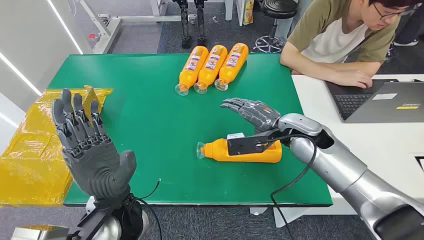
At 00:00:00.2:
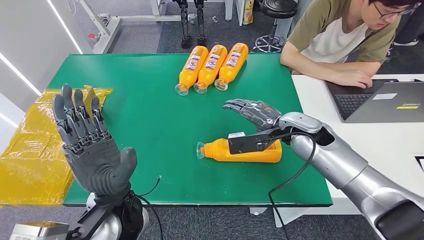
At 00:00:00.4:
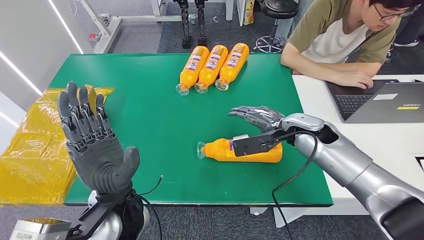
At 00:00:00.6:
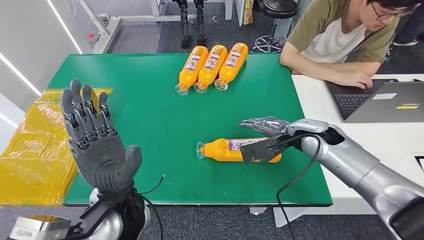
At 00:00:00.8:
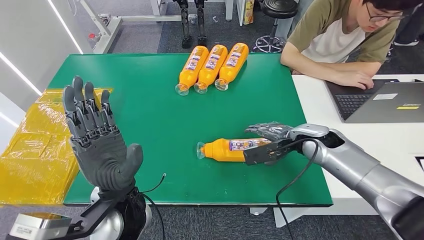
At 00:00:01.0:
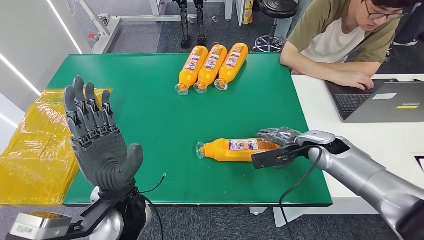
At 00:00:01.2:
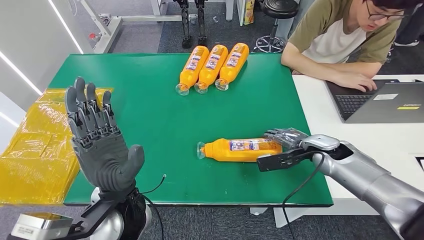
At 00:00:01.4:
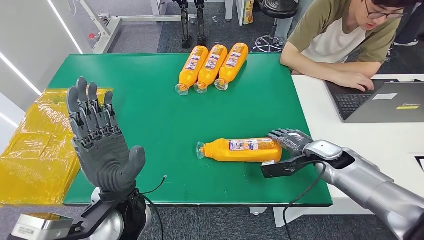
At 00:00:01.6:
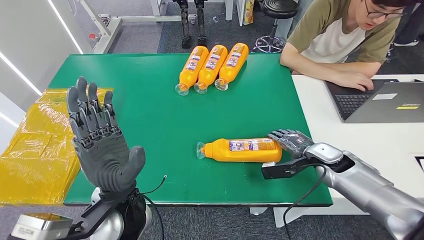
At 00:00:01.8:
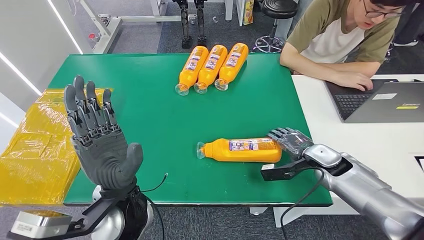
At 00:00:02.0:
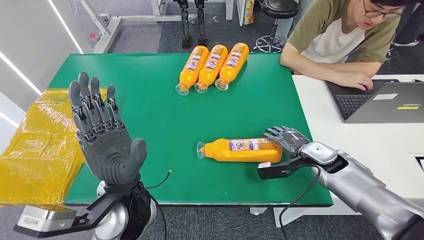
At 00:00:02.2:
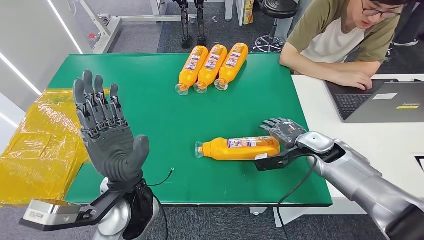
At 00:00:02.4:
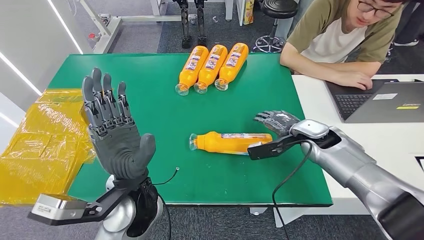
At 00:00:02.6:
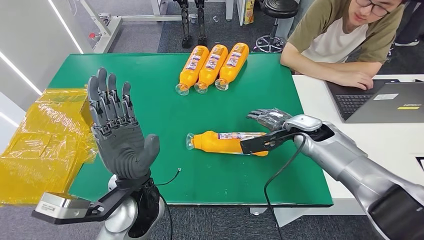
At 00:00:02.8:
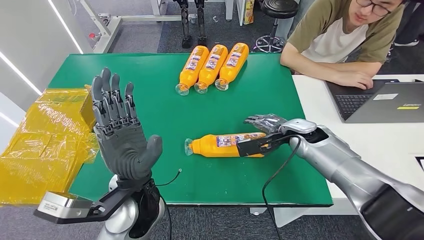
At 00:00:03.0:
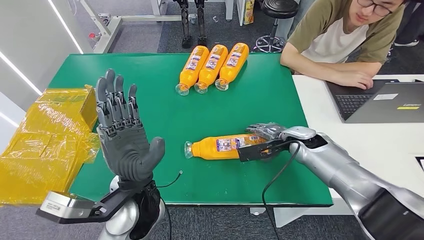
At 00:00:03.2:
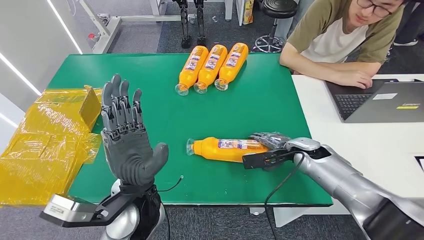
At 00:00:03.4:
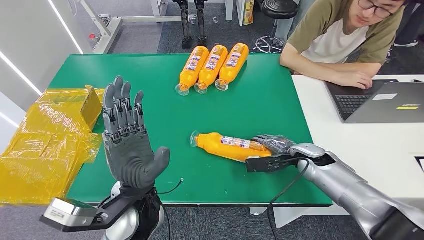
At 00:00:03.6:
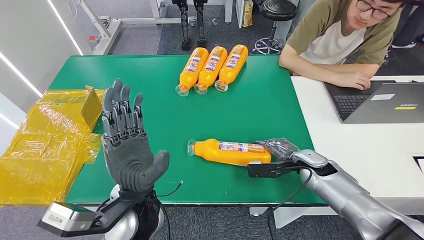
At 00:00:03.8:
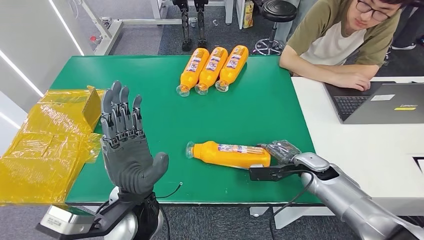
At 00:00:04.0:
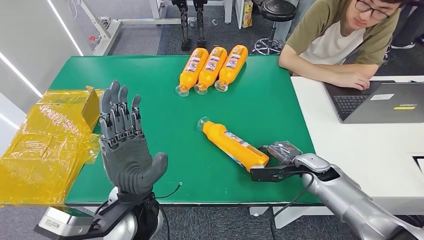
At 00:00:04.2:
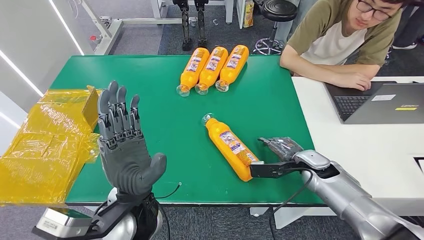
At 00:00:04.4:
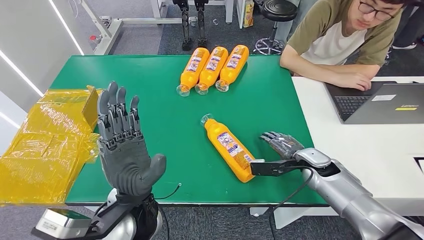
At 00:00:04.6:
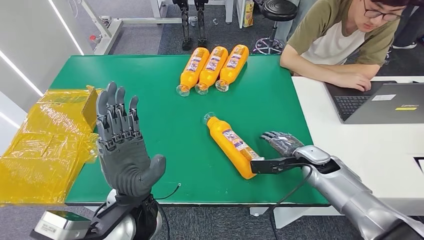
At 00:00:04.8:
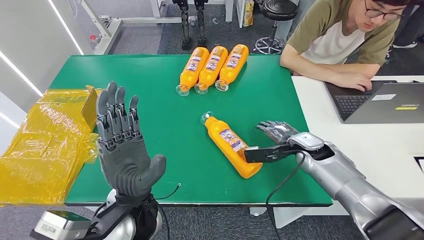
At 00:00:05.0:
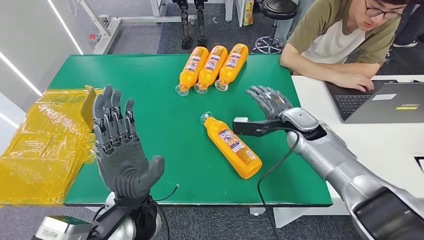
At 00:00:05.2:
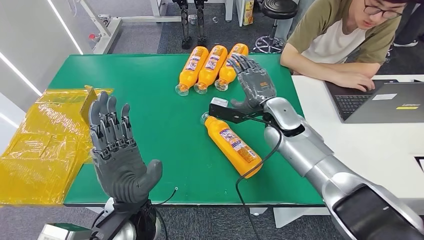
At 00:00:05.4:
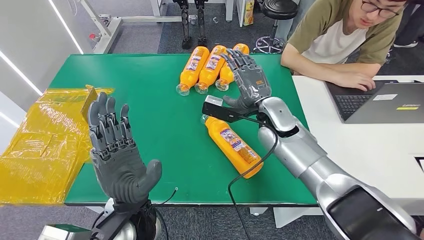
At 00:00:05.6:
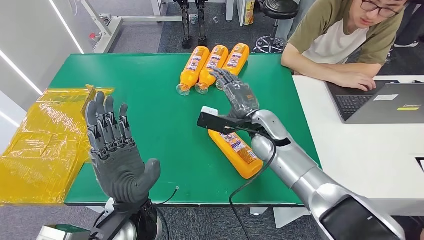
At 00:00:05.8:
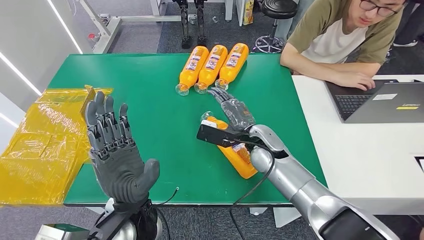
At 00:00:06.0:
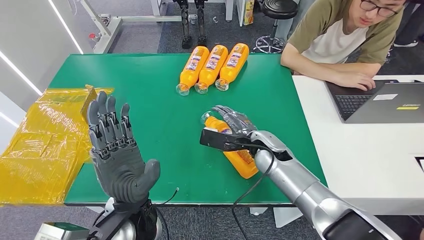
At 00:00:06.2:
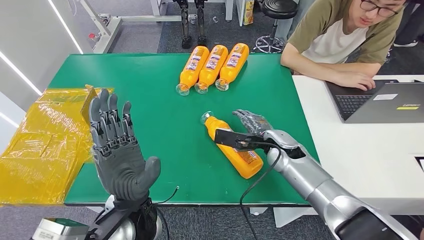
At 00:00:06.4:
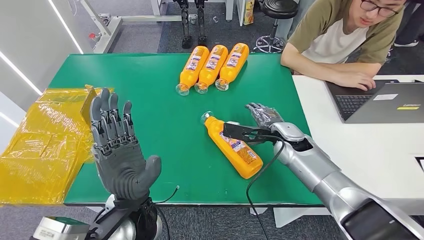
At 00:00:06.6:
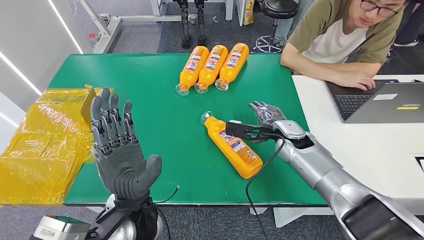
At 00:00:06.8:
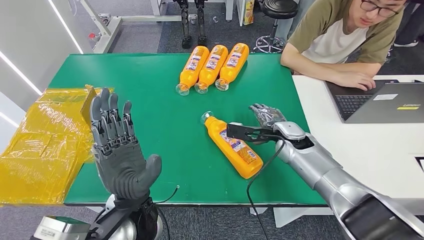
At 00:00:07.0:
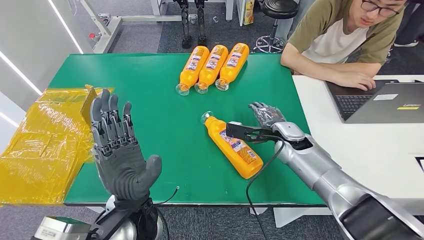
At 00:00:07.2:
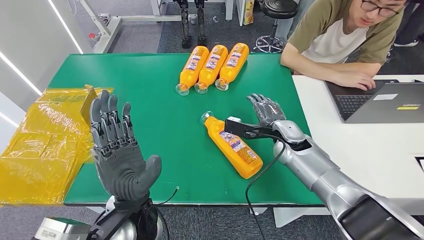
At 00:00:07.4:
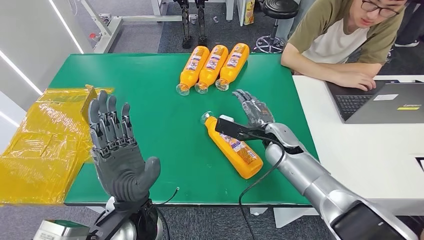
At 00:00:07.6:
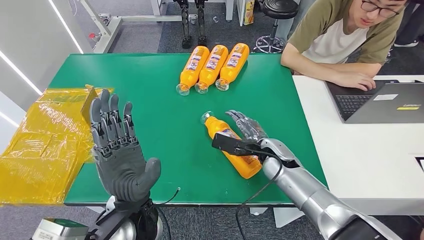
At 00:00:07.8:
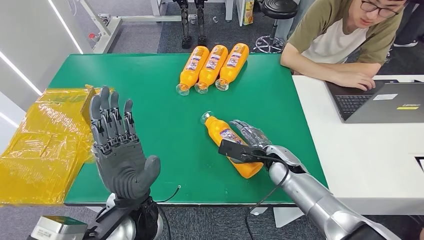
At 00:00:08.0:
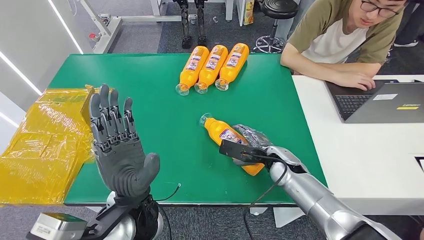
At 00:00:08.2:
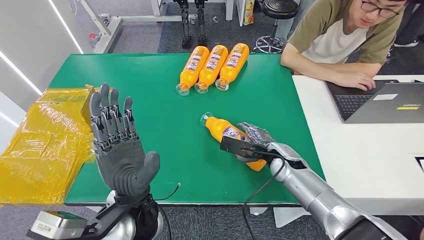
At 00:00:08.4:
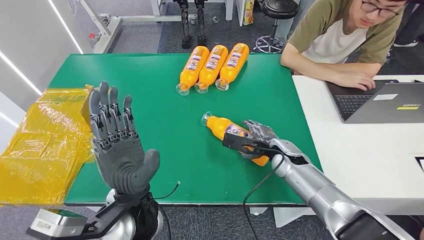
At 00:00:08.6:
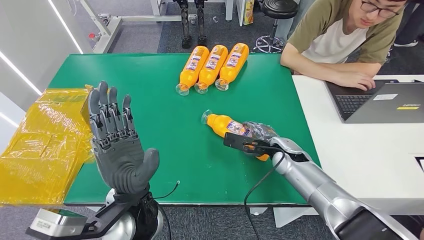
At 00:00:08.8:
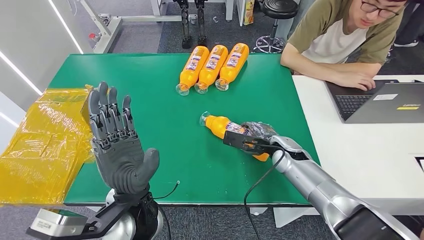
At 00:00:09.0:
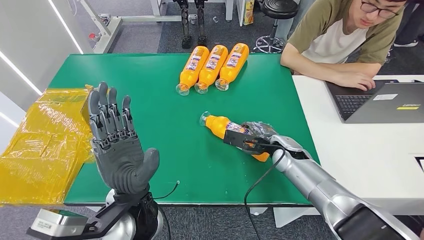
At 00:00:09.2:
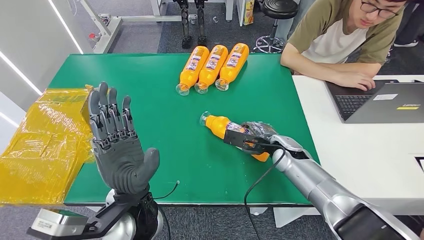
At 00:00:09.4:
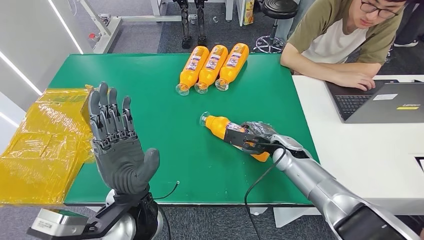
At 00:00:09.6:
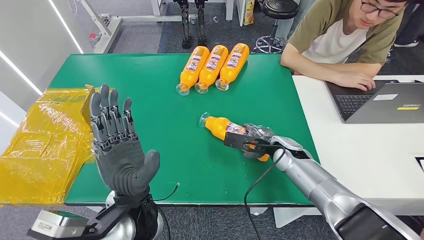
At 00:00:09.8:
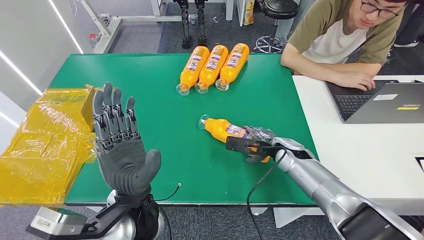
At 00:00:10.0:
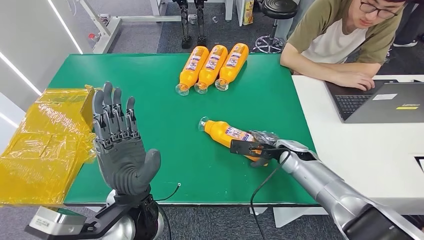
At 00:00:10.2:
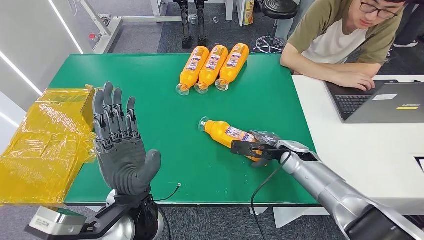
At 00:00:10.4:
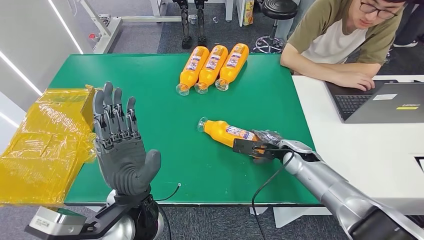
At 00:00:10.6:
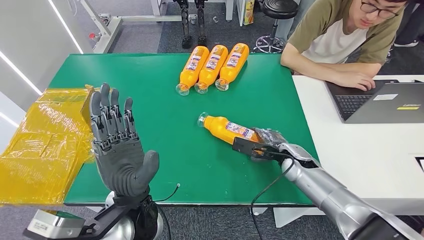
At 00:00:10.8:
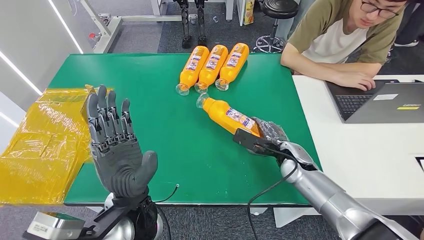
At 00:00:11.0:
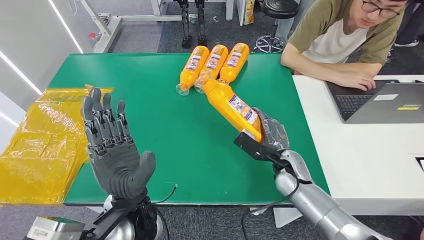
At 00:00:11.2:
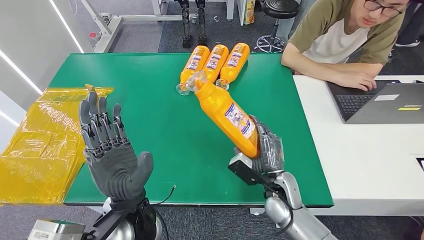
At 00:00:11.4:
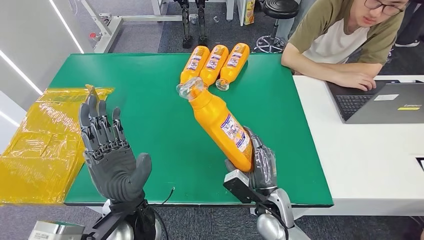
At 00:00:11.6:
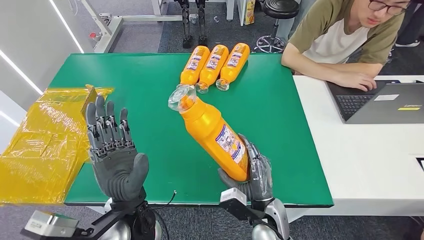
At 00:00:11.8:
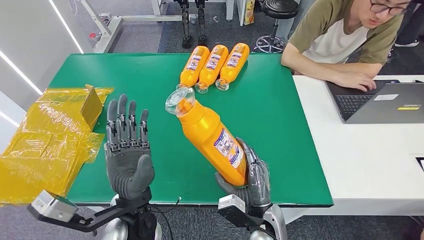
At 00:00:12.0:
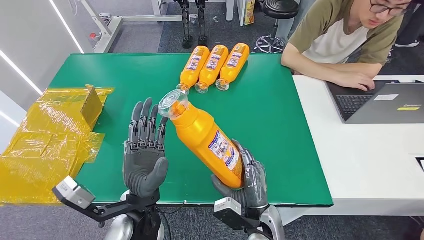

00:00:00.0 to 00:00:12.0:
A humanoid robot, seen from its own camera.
Step, 00:00:00.0 to 00:00:11.6: Pick up the bottle from the table.
00:00:04.4 to 00:00:06.0: The right hand is displaced to the left by roughly 15 cm.
00:00:07.6 to 00:00:09.0: The hands stay close to where they were, moving slightly.
00:00:09.0 to 00:00:10.4: There are only small adjustments of the hands.

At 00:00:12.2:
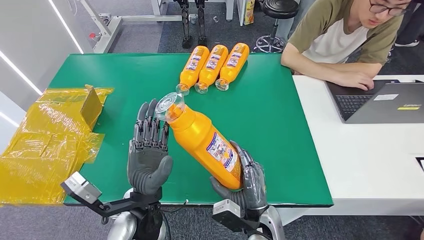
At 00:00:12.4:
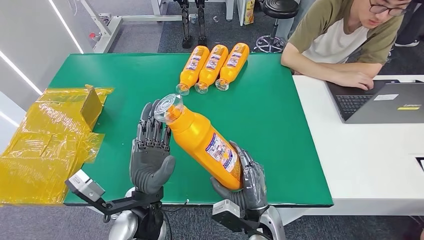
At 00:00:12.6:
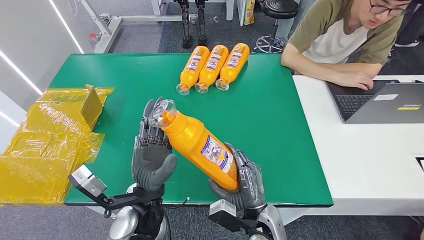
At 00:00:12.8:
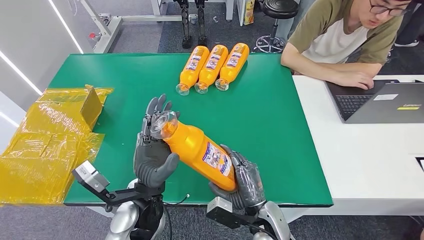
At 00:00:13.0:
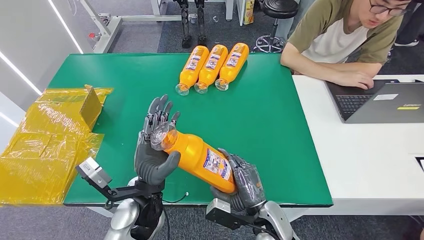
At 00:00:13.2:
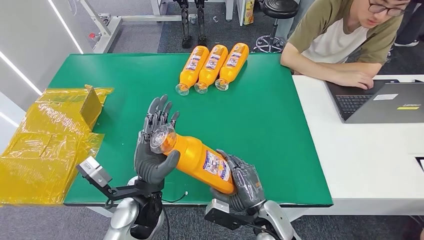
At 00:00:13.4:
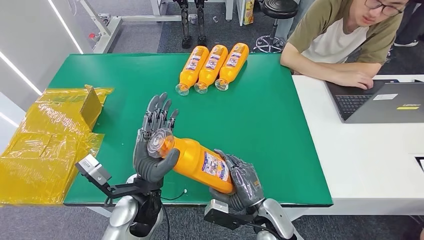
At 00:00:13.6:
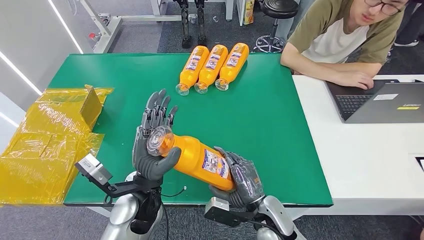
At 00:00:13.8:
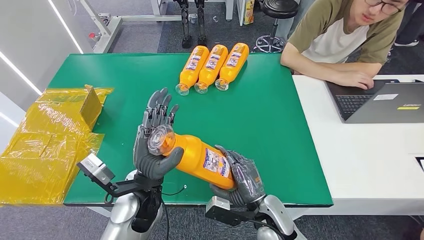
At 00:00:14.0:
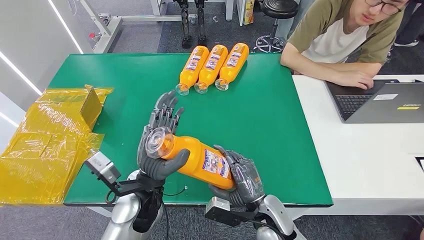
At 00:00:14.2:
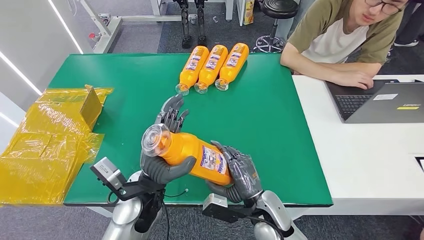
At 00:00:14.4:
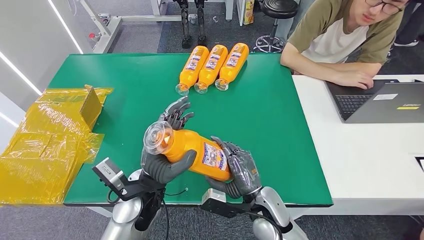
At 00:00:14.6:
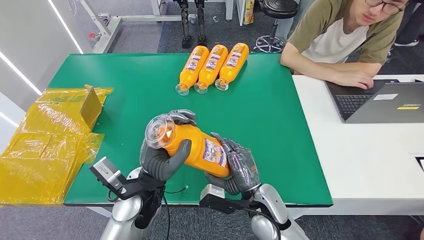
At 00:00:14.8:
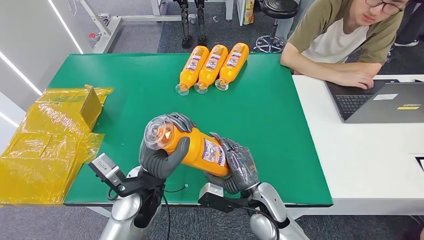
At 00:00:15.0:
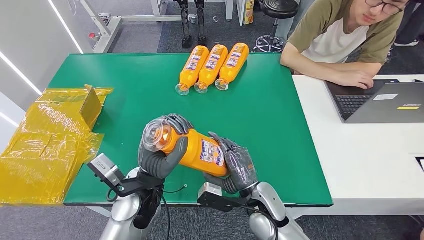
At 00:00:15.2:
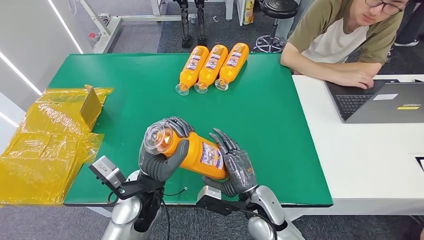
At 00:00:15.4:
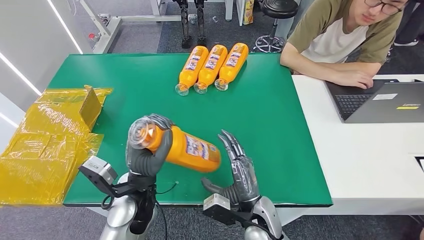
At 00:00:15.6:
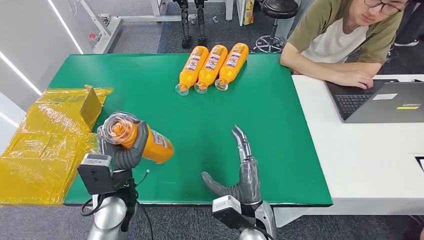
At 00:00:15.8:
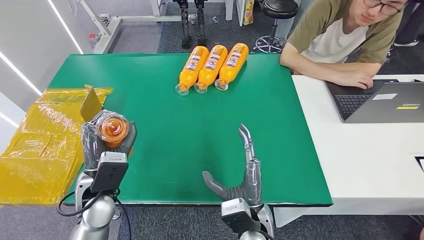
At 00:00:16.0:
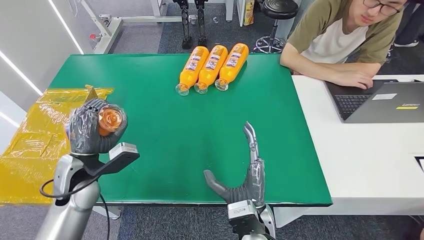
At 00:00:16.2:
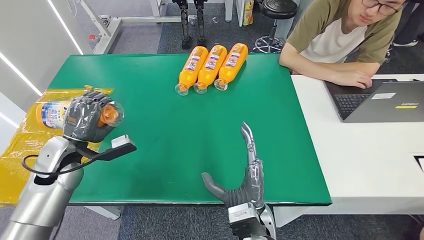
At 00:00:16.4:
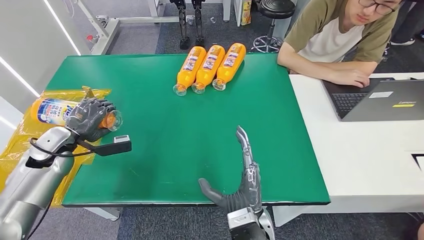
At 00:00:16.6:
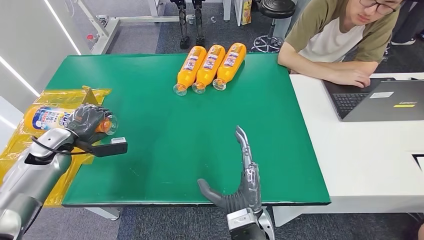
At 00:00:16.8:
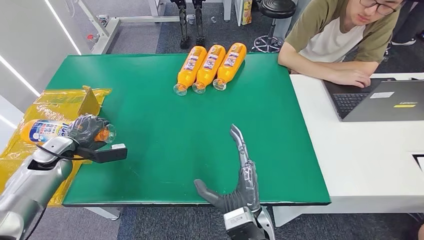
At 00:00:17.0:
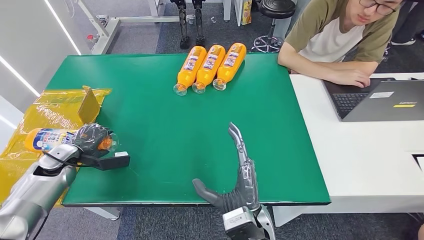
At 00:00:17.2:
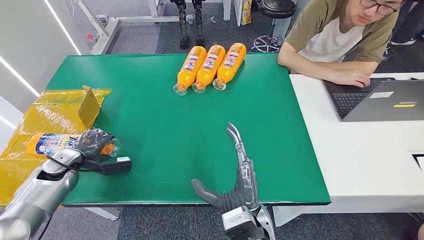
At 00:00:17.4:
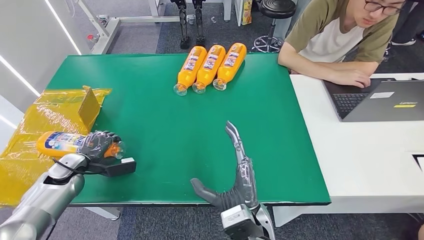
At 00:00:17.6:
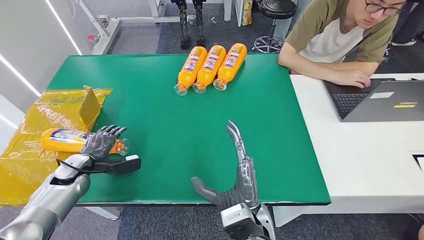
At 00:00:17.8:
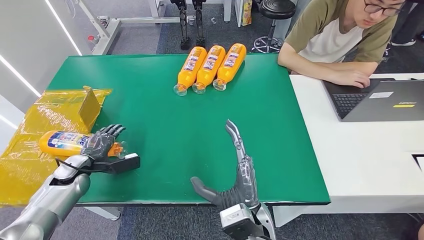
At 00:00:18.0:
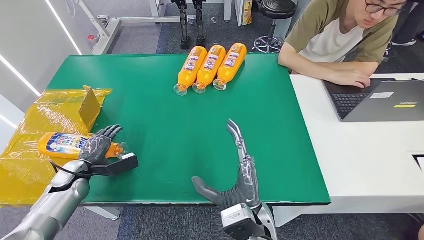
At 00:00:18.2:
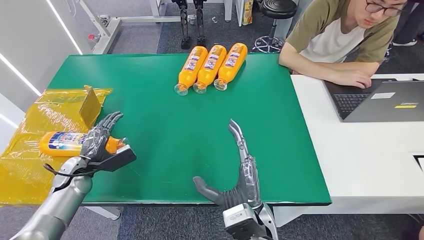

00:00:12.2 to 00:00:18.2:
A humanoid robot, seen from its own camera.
Step, 00:00:12.2 to 00:00:18.2: Turn the bottle to the front side.
00:00:13.8 to 00:00:15.2: There are only small adjustments of the hands.
00:00:16.6 to 00:00:18.2: The left hand moves downward and backward, some 10 cm.
